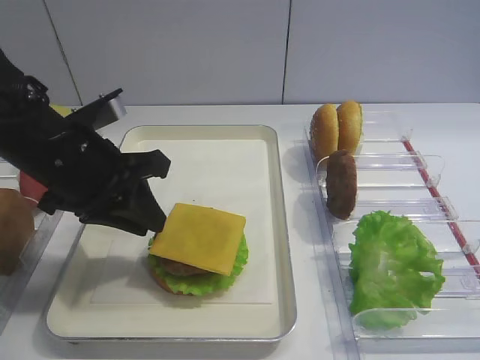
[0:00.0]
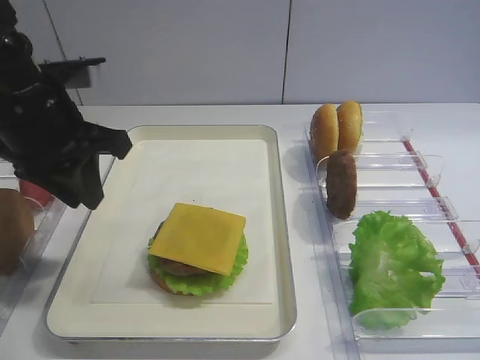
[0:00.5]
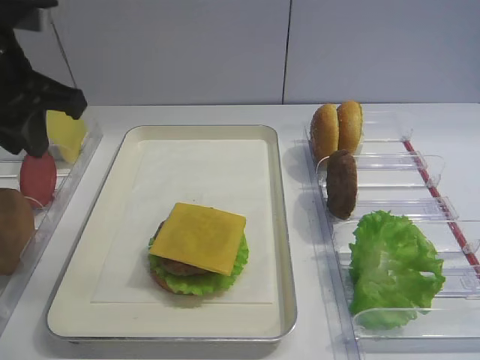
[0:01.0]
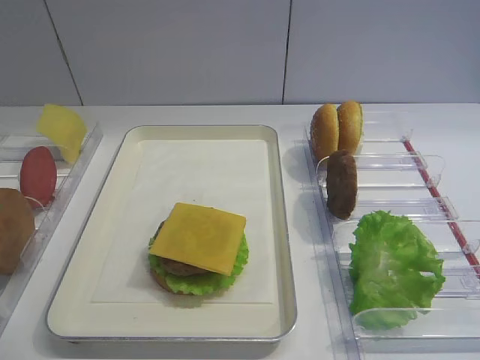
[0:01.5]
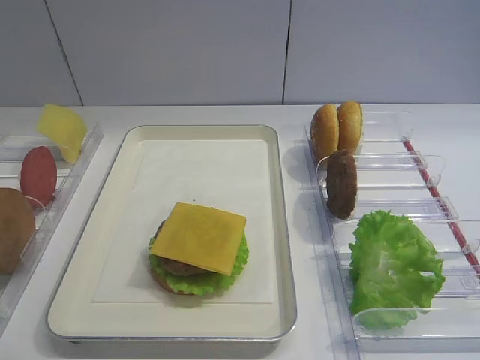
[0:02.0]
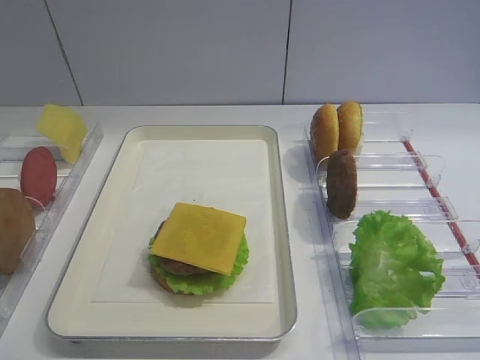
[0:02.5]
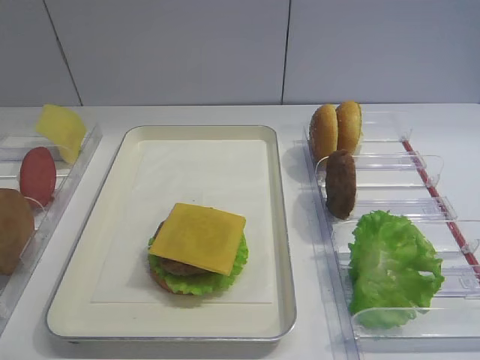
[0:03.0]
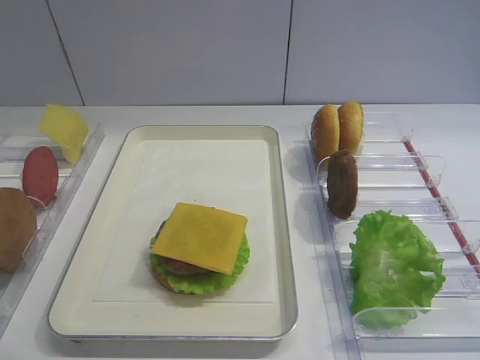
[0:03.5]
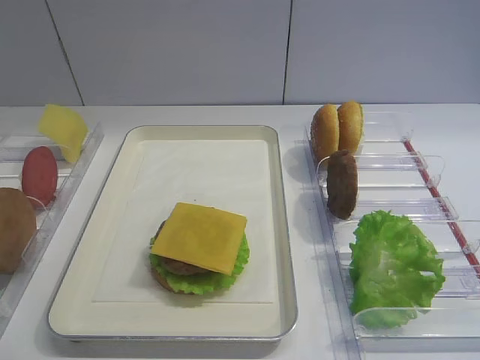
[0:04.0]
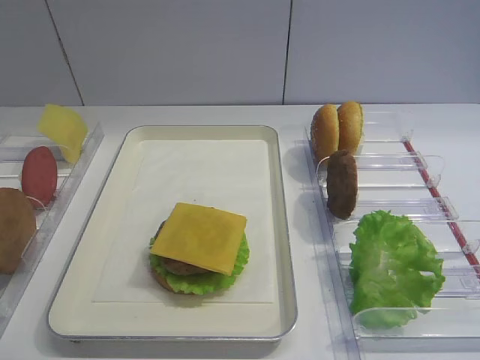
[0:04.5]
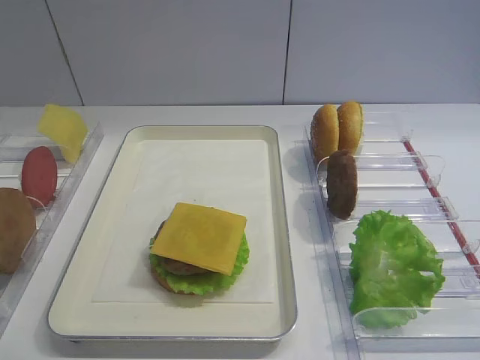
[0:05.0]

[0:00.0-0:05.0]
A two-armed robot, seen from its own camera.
0:00.0 to 0:02.5: The left gripper is displaced backward and to the left by some 30 cm.

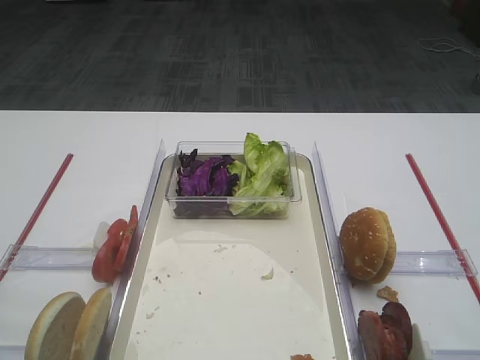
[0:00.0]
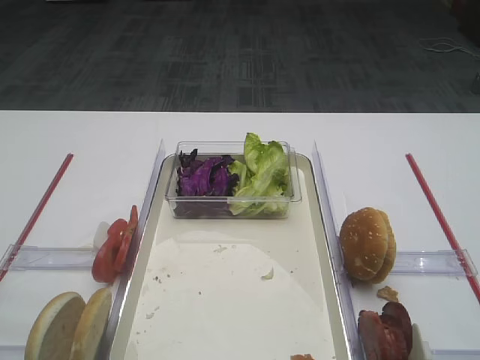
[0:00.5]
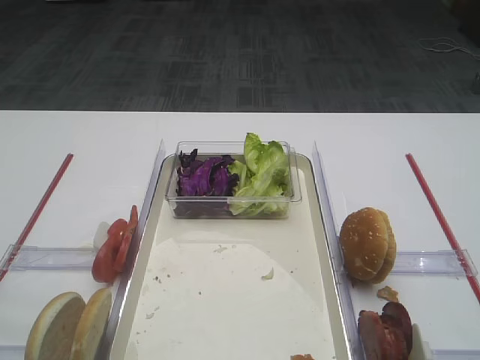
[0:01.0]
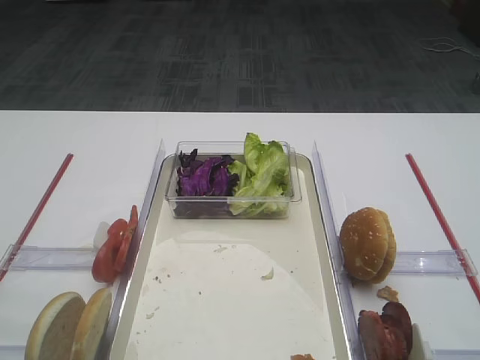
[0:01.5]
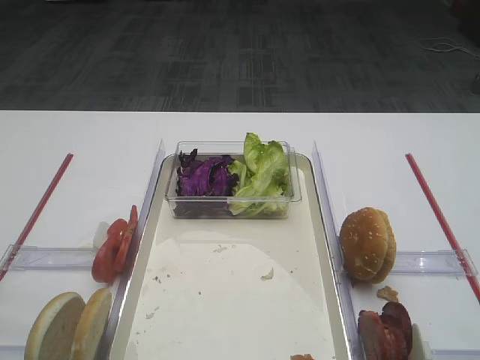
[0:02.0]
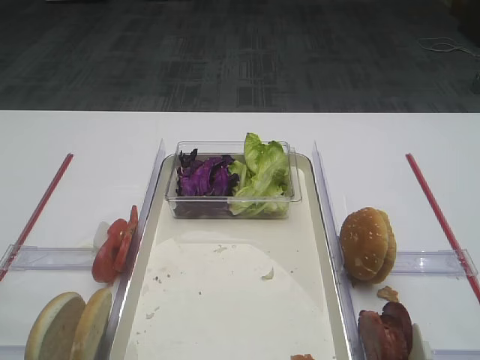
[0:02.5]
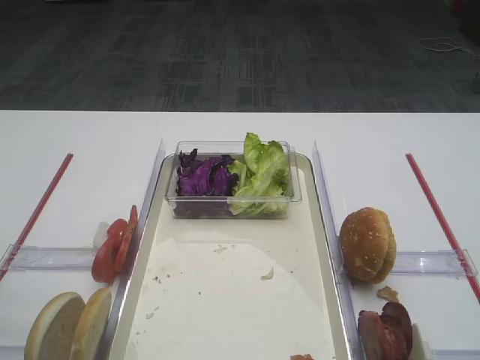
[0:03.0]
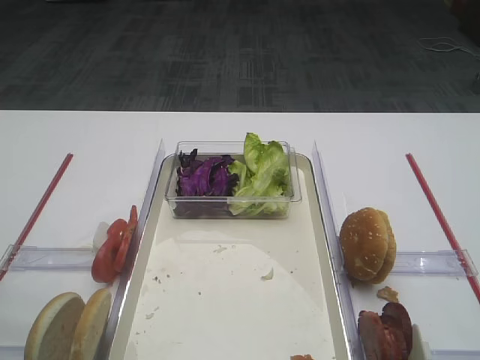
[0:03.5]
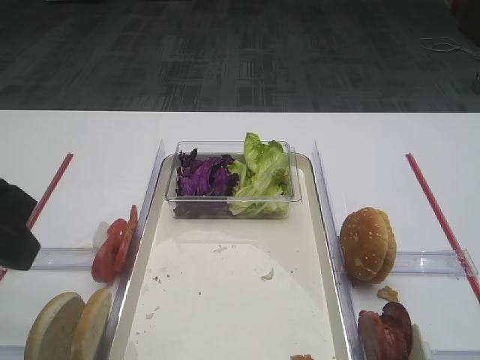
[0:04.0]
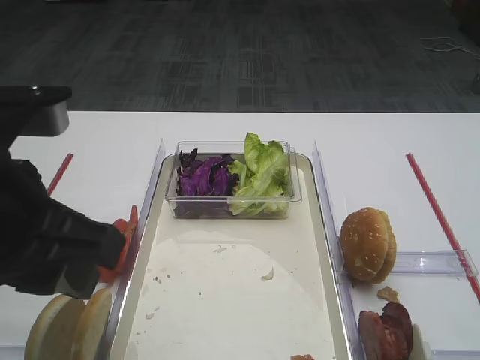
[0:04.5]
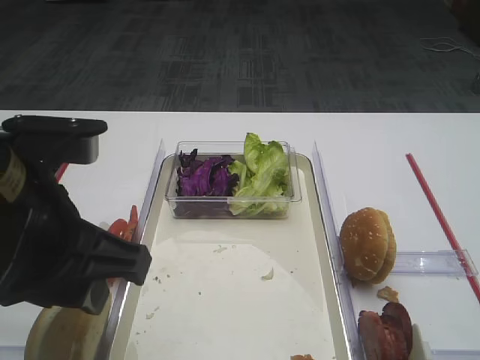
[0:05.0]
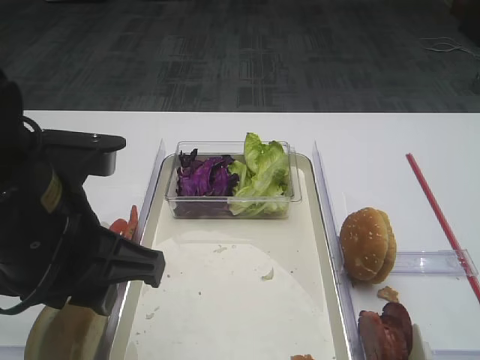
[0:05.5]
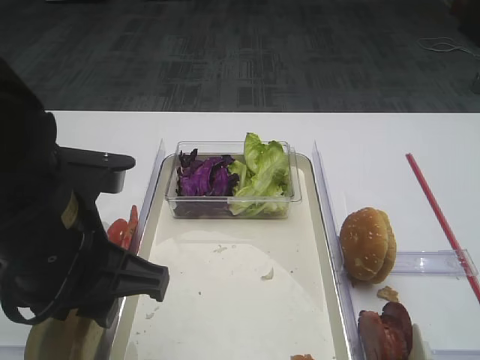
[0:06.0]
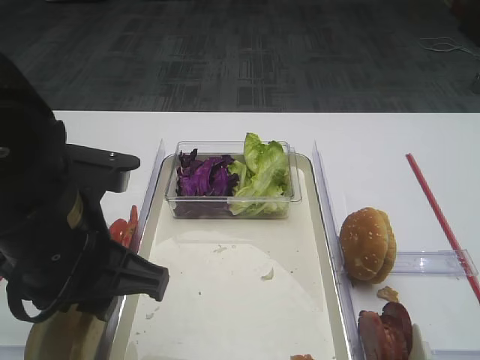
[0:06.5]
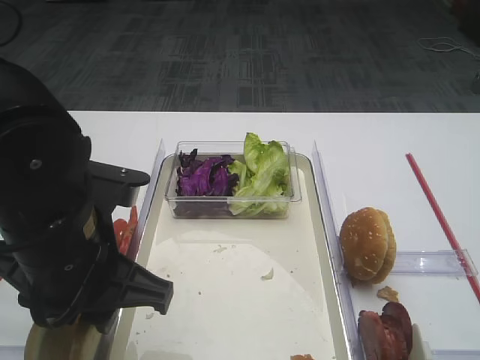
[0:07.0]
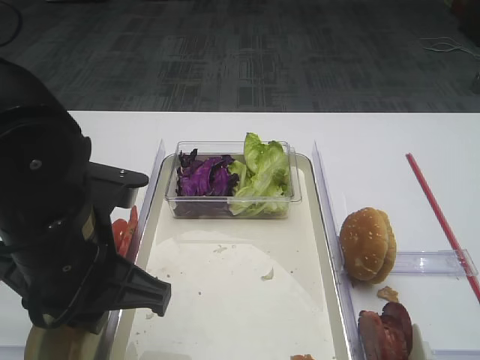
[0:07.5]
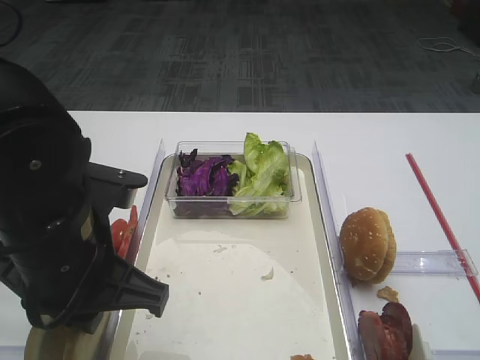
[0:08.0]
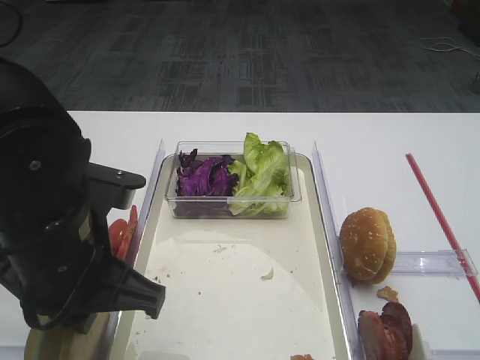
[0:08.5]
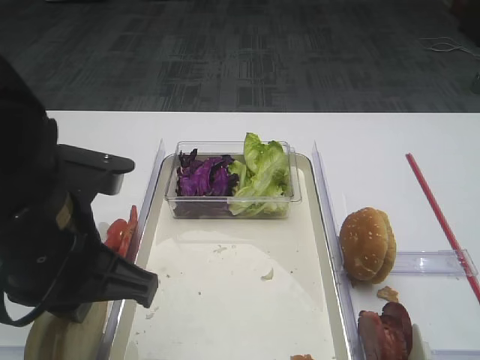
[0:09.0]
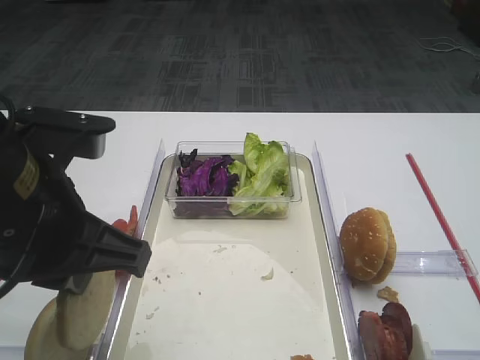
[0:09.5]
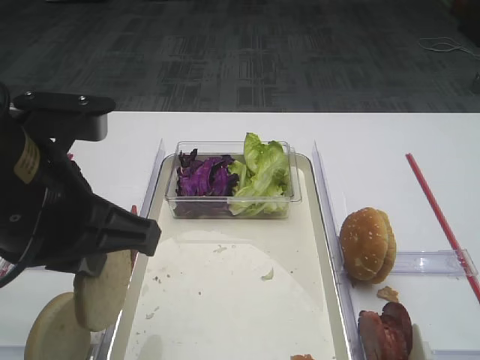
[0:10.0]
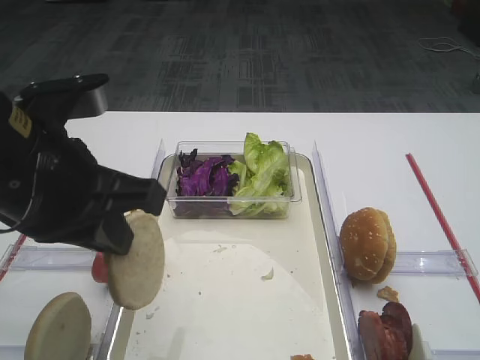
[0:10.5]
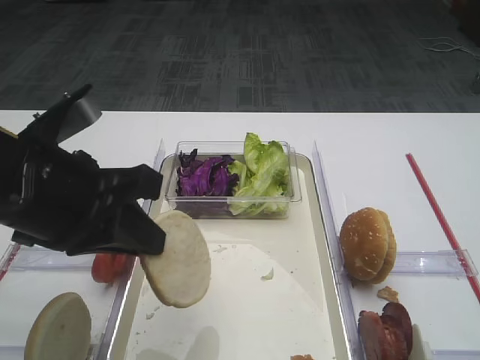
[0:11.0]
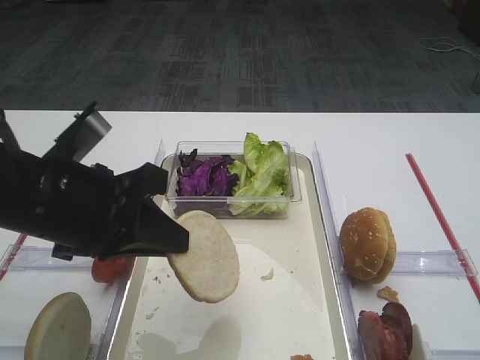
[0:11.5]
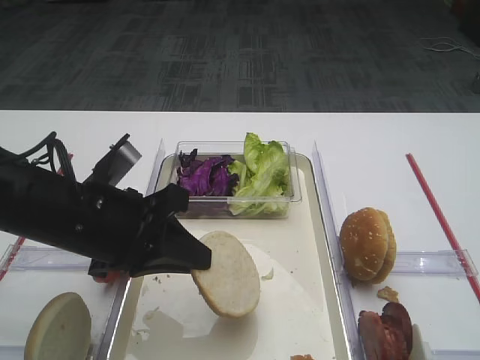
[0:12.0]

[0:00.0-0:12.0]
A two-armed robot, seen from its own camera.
Step, 0:00.0 to 0:10.0: Pick up the bread slice with the left gripper.
0:02.0 to 0:04.0: The left gripper shifts approximately 15 cm forward and to the right.
0:04.0 to 0:06.0: The left gripper travels to the right and downward by roughly 10 cm.
0:06.0 to 0:08.0: The left gripper closes up.
0:08.0 to 0:10.0: The left gripper moves upward, about 5 cm.
0:10.0 to 0:12.0: The left gripper shifts approximately 10 cm downward and forward.

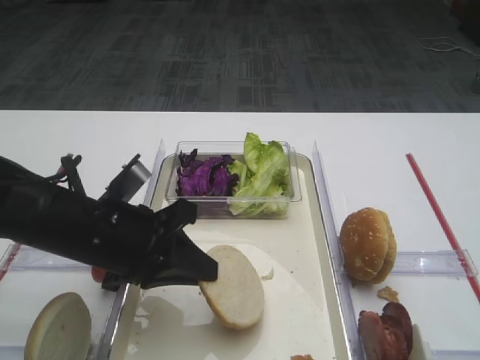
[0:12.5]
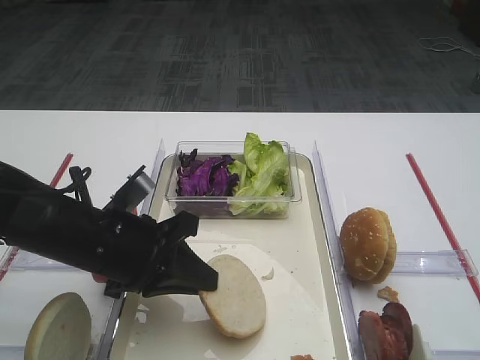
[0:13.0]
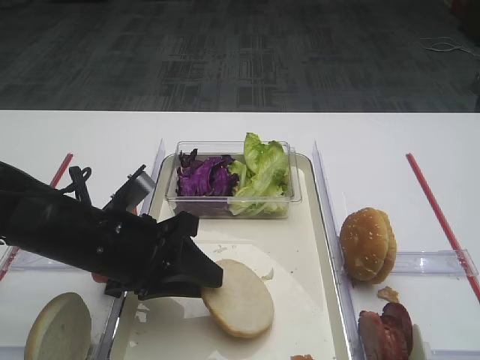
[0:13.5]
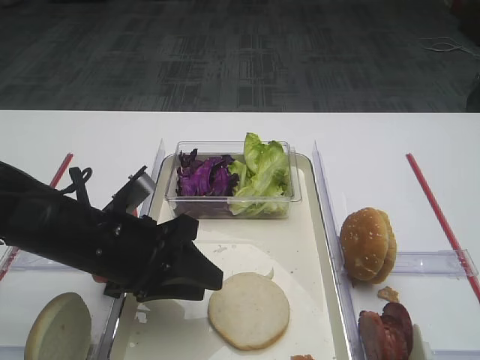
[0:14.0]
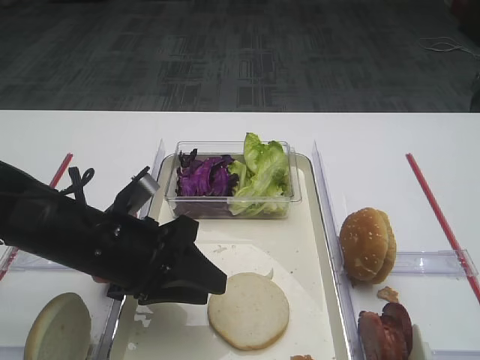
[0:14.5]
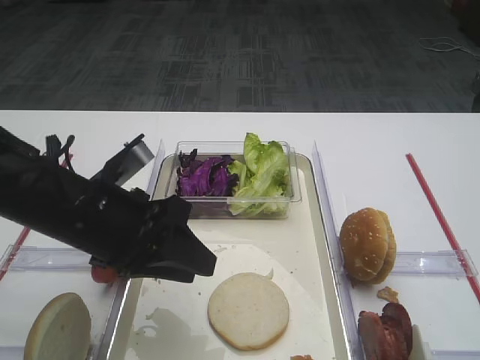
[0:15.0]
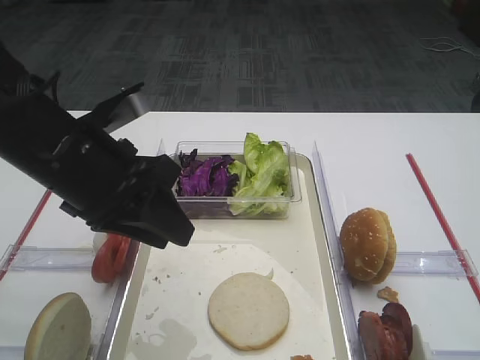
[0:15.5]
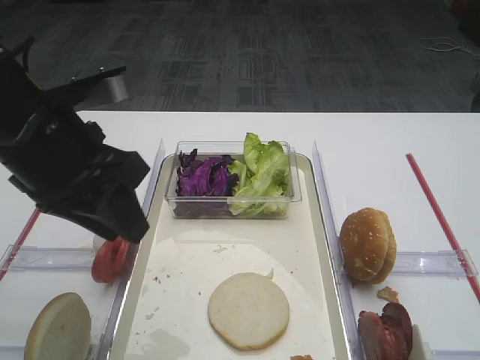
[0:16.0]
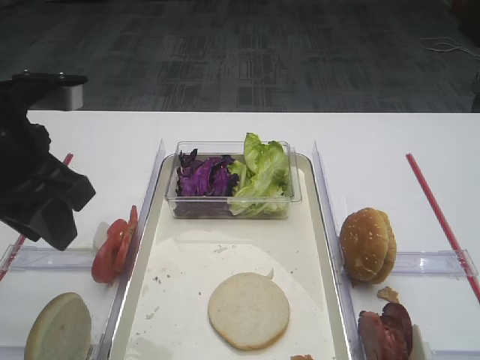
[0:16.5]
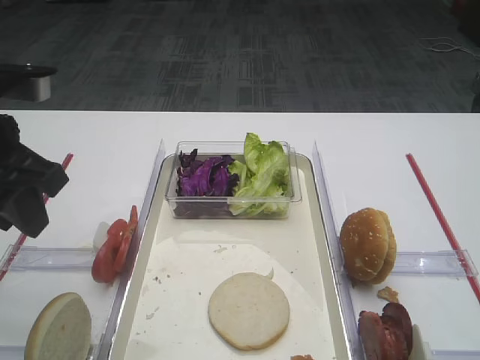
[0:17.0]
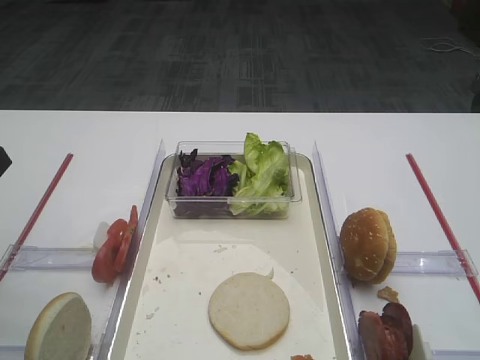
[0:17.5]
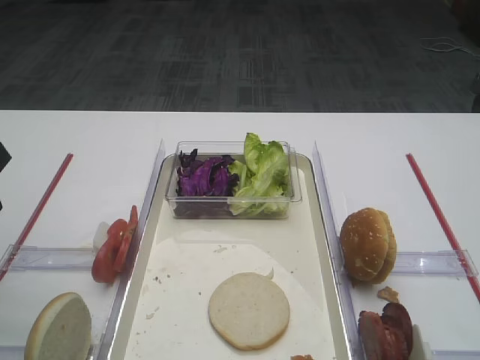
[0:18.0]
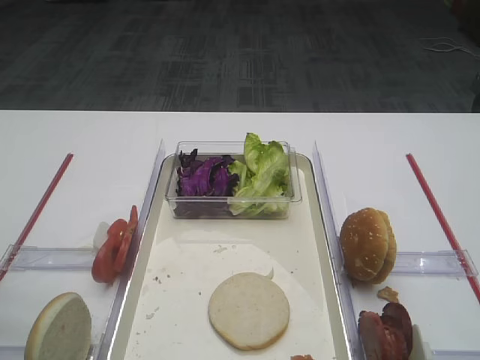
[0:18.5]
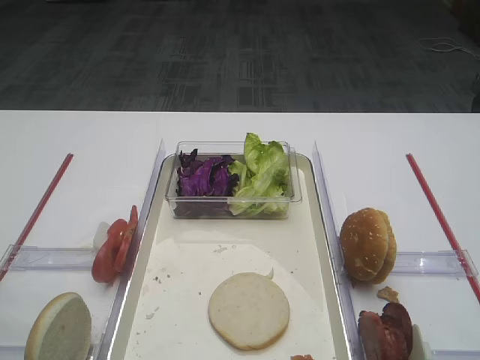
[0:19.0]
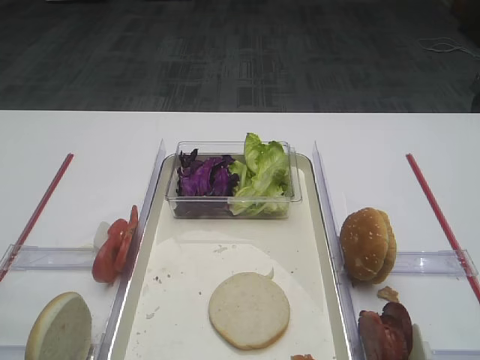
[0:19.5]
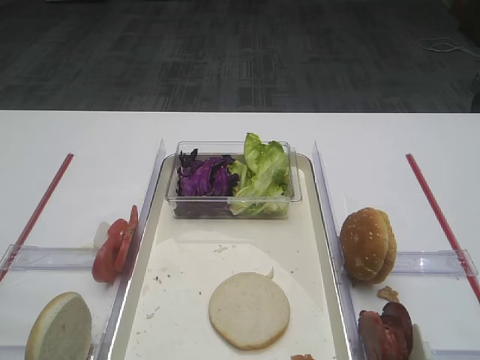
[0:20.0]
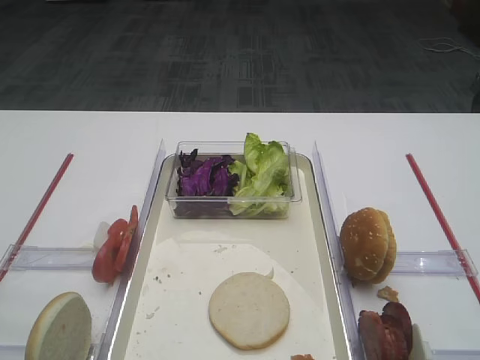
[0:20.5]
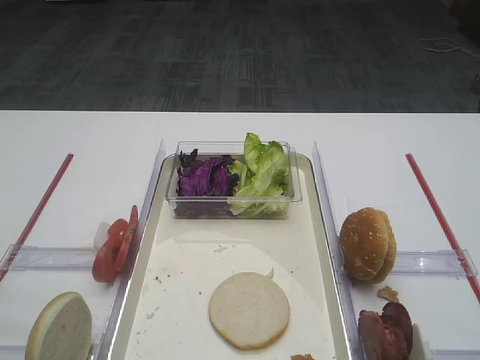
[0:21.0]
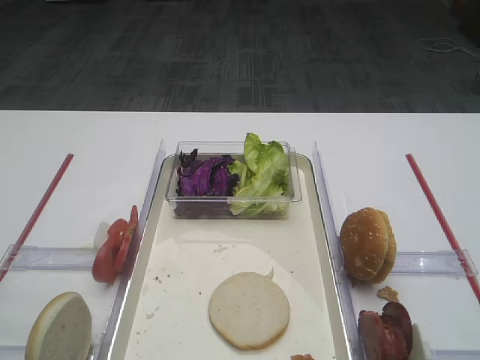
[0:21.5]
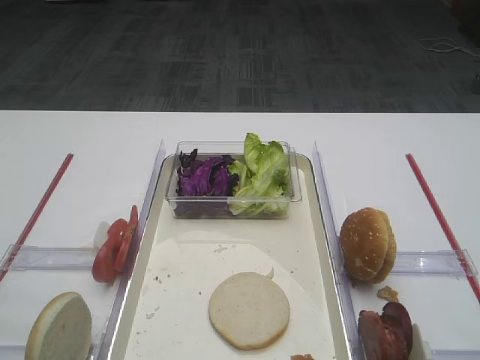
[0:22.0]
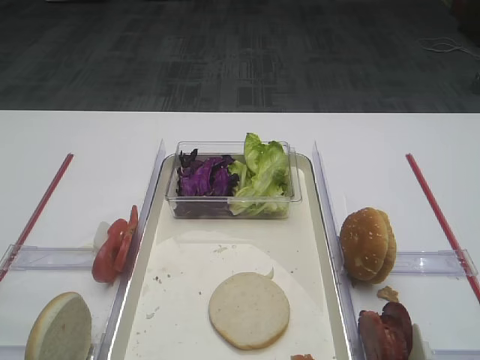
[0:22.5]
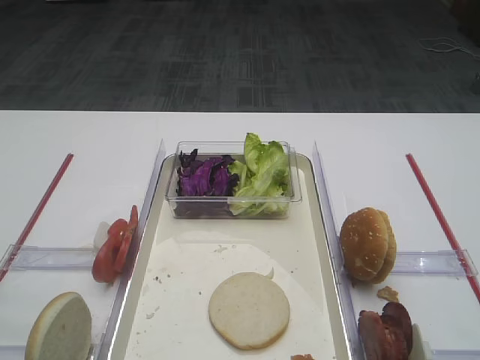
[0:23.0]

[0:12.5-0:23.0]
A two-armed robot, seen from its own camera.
Step, 0:12.5 to 0:15.5: Place the bread slice on the tray with the left gripper.
0:12.5 to 0:14.5: The left gripper opens its fingers.
0:14.5 to 0:16.5: The left gripper moves upward and to the left, approximately 15 cm.
0:16.5 to 0:19.0: The left gripper moves backward and to the left, roughly 15 cm, and opens its fingers.
0:21.0 to 0:23.0: The two grippers keep their place.
